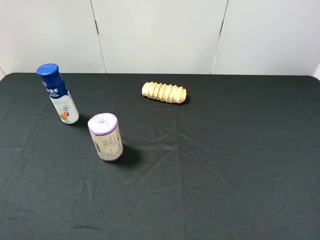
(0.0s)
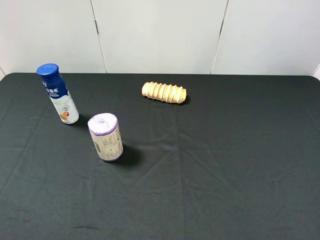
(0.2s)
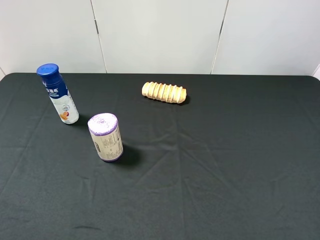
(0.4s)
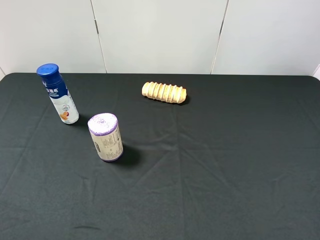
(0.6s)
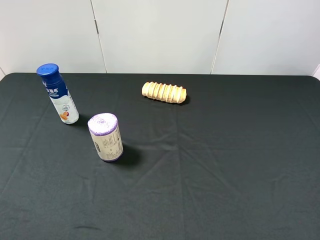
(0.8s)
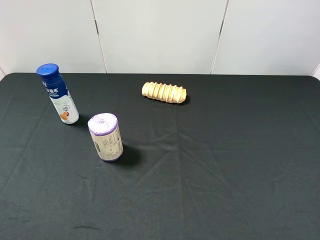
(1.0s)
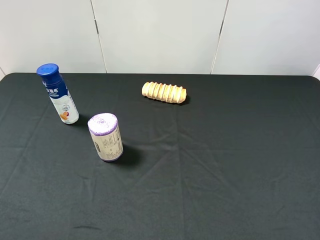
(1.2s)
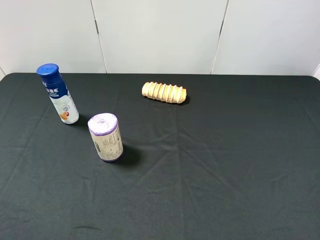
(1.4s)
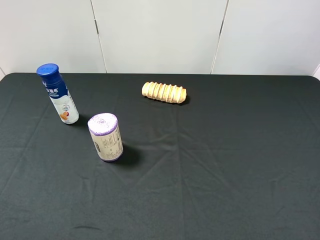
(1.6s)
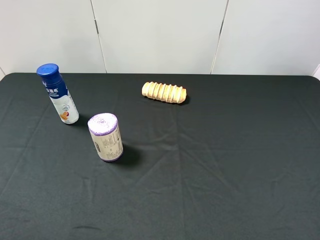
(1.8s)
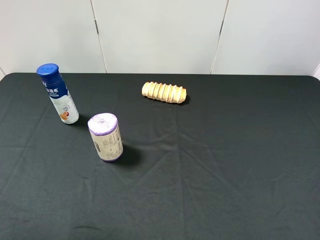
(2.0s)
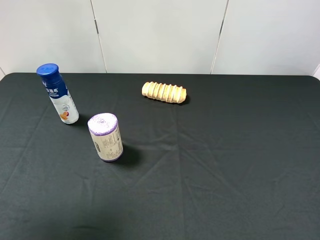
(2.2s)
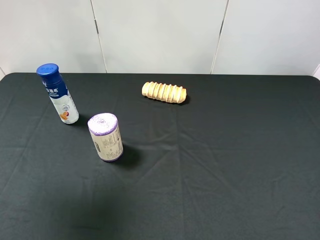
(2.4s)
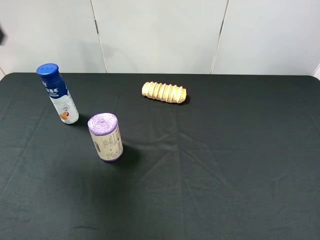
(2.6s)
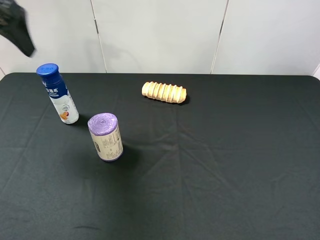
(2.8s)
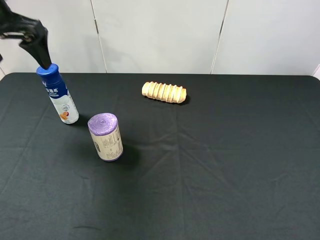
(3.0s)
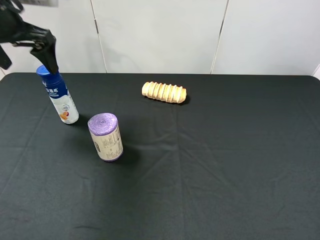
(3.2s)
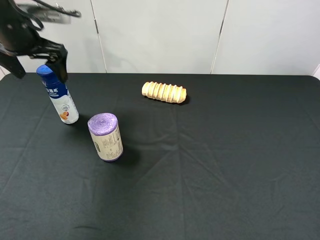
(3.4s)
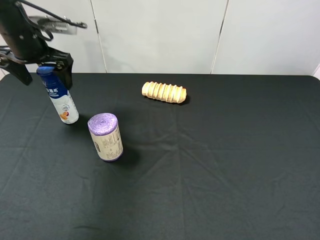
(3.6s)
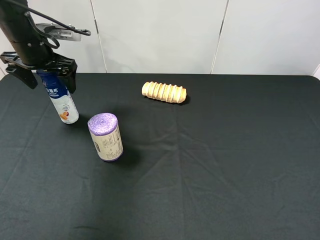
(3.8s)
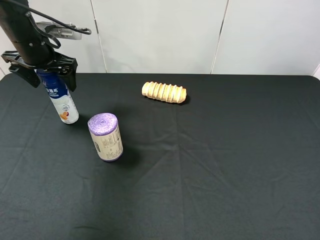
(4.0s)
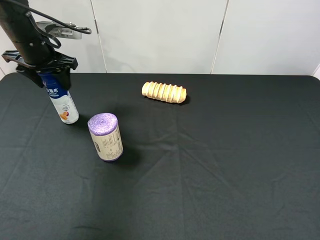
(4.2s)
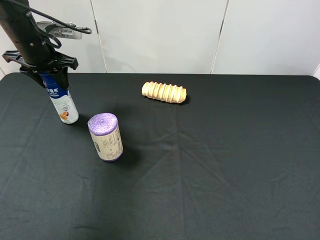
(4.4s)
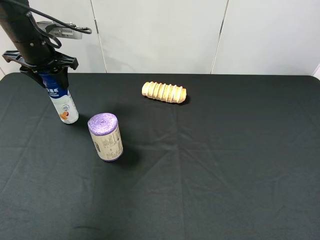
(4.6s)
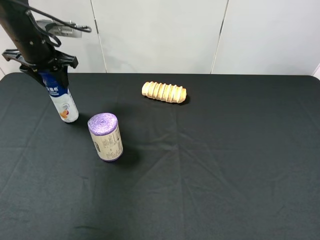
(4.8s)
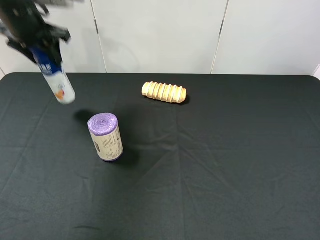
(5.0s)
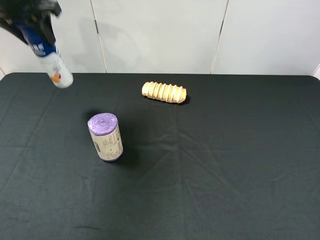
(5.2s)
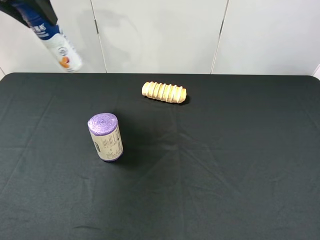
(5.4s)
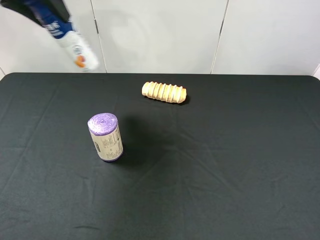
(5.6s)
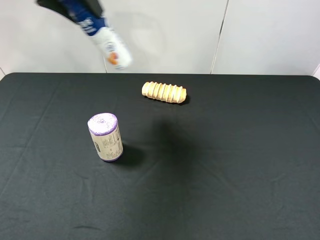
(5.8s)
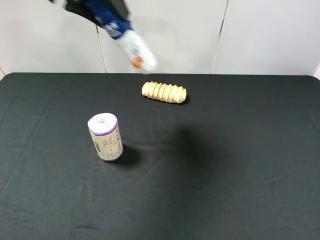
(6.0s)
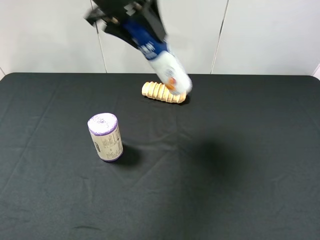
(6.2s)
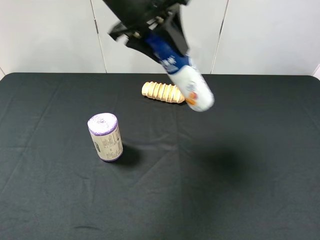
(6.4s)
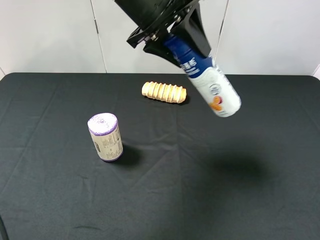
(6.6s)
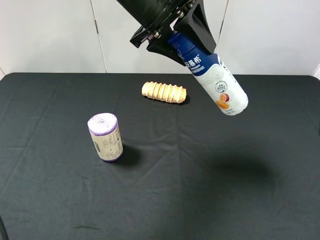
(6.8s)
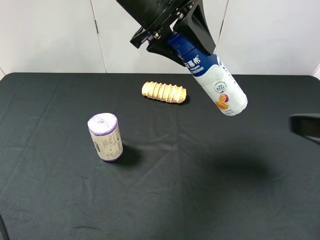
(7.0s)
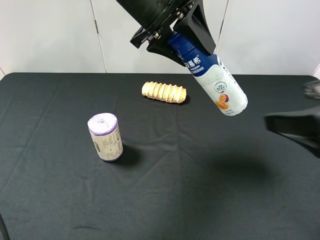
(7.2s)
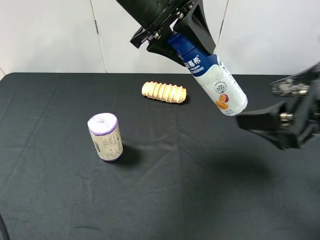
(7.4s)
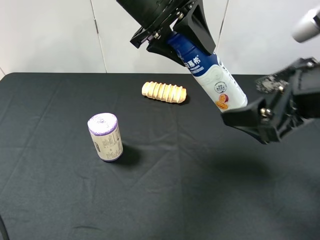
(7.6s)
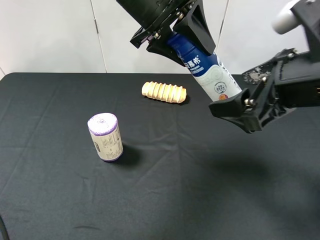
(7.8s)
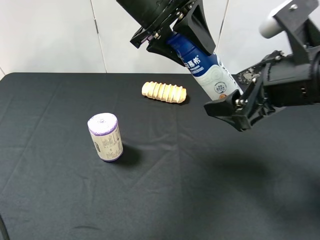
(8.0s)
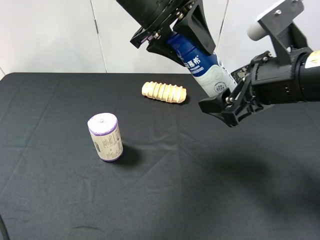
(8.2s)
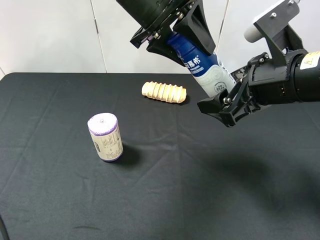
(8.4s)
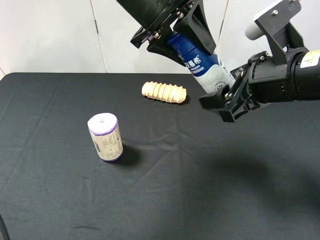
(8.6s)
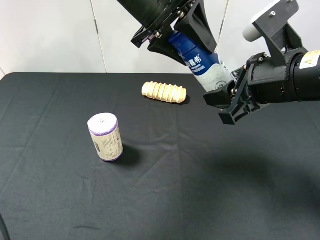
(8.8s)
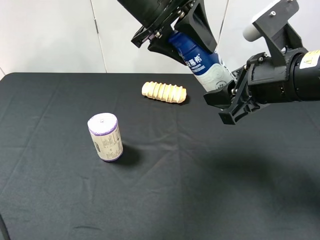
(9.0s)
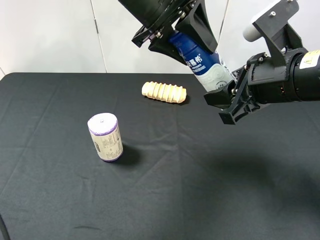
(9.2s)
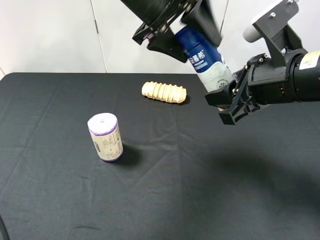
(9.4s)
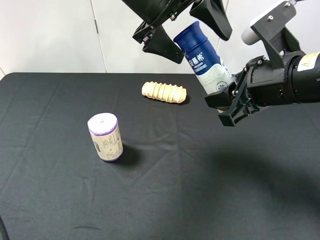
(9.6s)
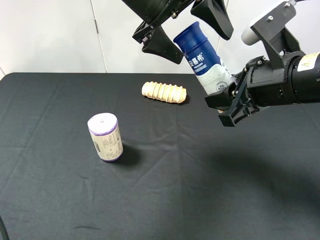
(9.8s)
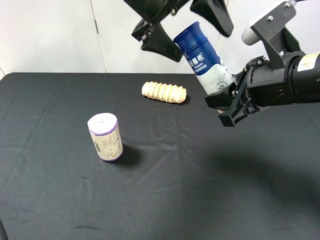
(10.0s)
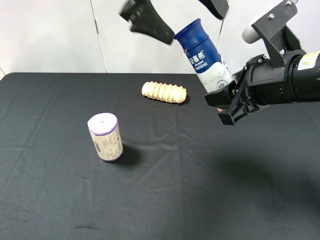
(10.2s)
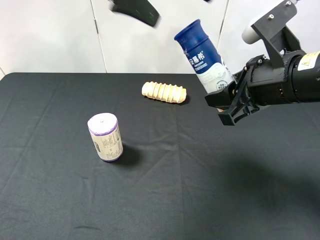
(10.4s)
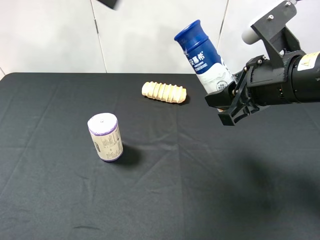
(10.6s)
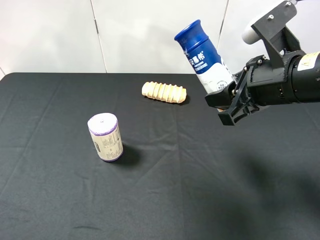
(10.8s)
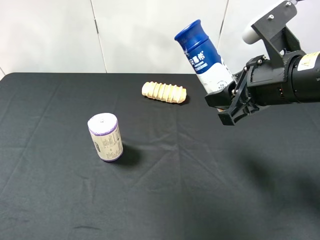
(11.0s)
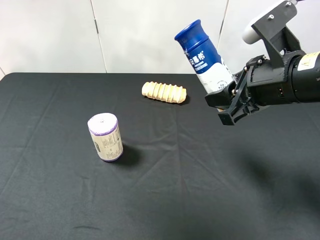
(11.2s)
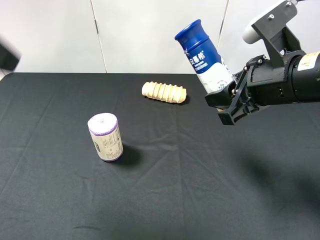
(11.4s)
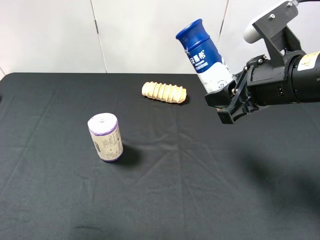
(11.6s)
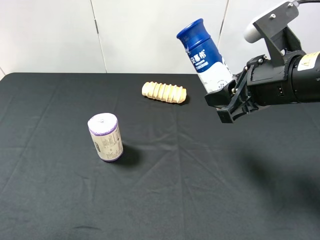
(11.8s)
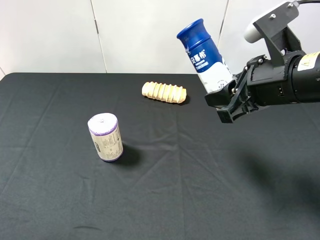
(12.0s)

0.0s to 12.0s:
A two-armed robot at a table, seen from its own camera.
Task of the whole recording: use the left gripper to pick up the item and transfer it from the left gripper to the right gripper.
1.6s to 3.0s: The left gripper is displaced forward by roughly 30 cm.
3.0s to 4.4s: The left gripper heads downward and forward, covering roughly 10 cm, and closes its fingers.
4.4s to 6.0s: The left gripper moves upward, to the right and backward, roughly 20 cm.
6.0s to 7.6s: The right gripper is displaced forward and to the left by approximately 20 cm. Meanwhile the left gripper travels to the right by about 10 cm.
7.6s to 9.0s: The right gripper shifts by roughly 5 cm, and closes up.
9.0s to 10.4s: The left gripper moves upward, roughly 10 cm, and opens its fingers.
10.4s to 12.0s: The left gripper heads backward and to the left, covering approximately 35 cm.

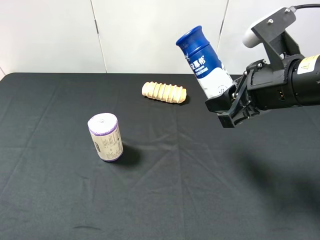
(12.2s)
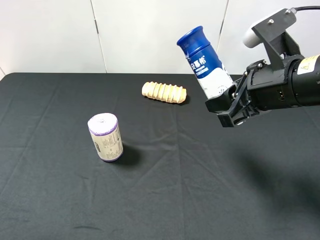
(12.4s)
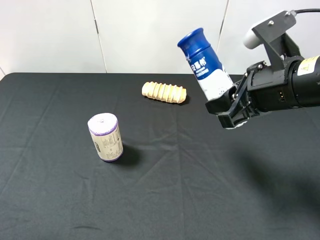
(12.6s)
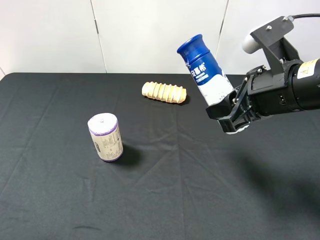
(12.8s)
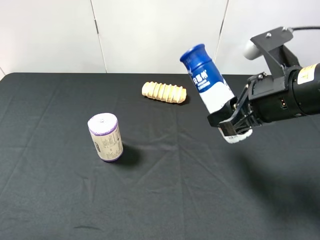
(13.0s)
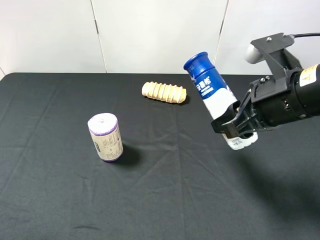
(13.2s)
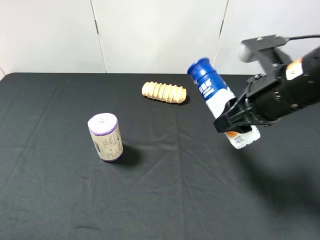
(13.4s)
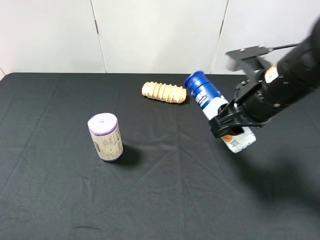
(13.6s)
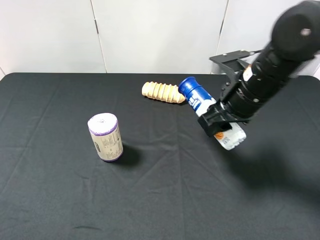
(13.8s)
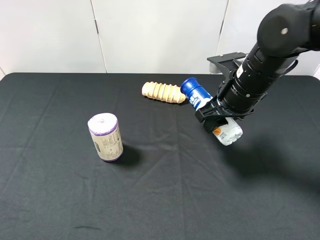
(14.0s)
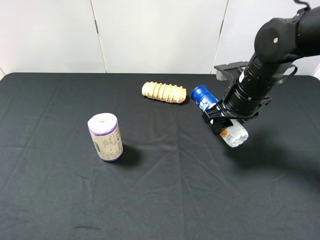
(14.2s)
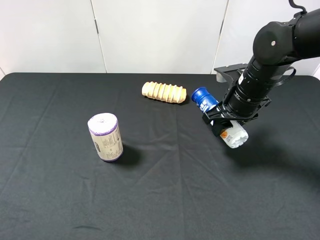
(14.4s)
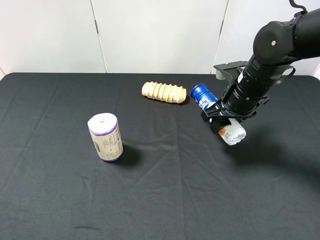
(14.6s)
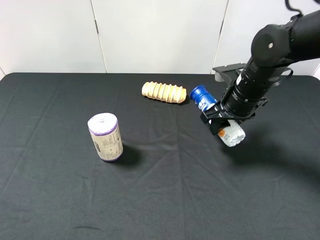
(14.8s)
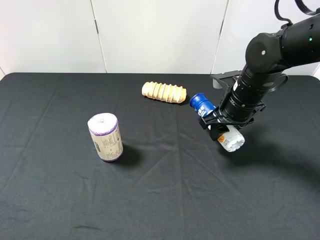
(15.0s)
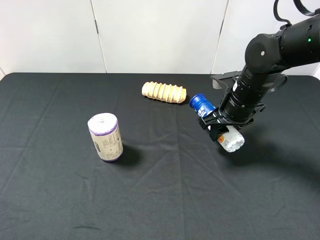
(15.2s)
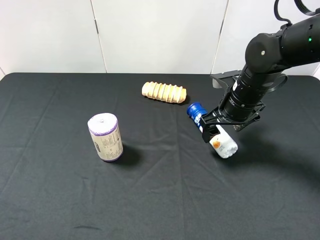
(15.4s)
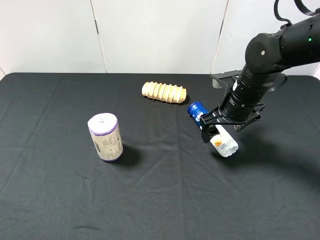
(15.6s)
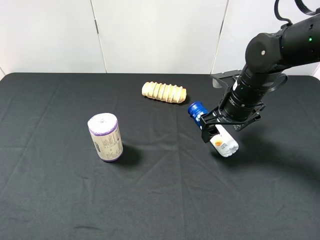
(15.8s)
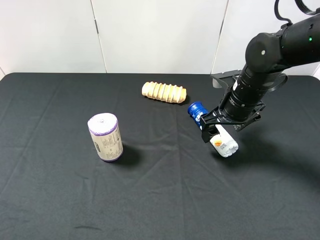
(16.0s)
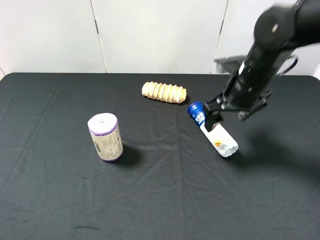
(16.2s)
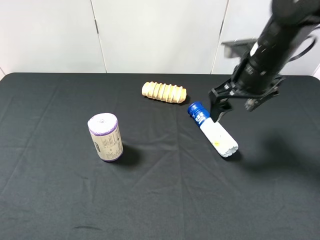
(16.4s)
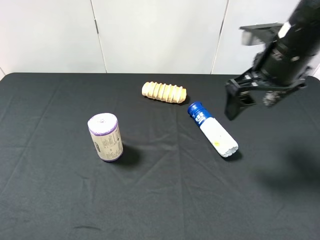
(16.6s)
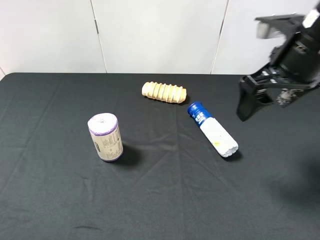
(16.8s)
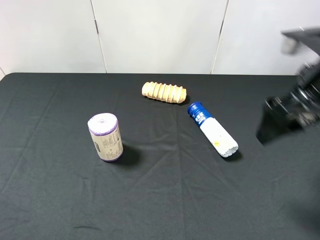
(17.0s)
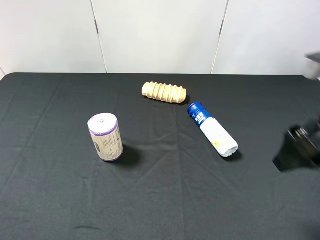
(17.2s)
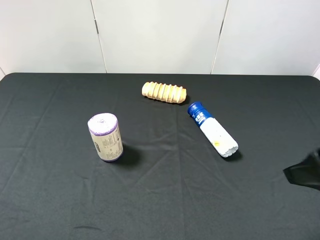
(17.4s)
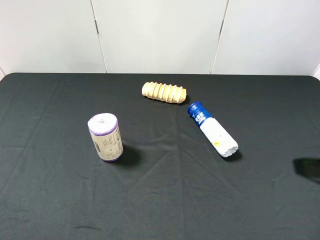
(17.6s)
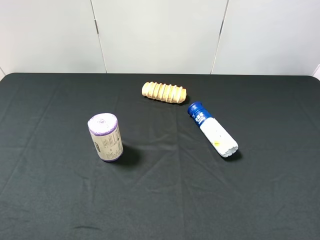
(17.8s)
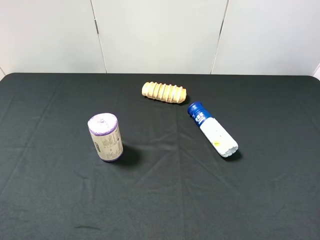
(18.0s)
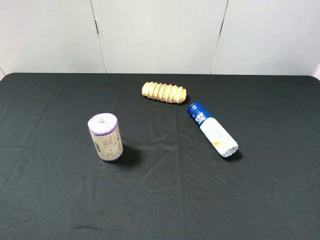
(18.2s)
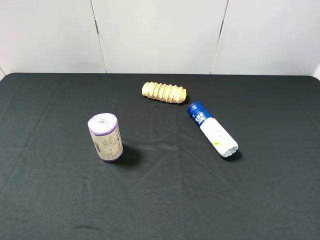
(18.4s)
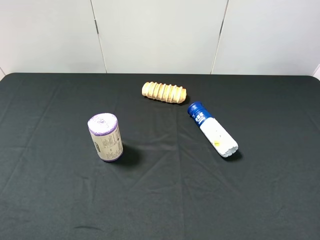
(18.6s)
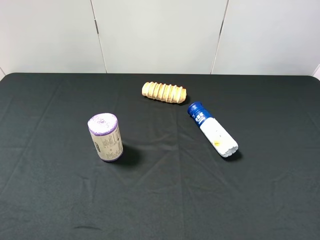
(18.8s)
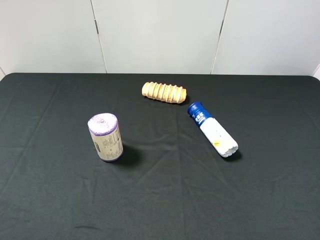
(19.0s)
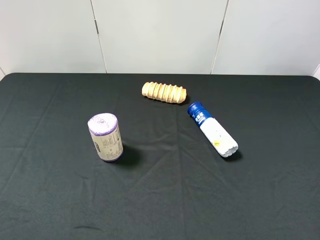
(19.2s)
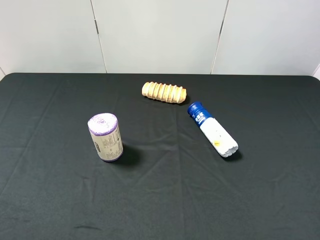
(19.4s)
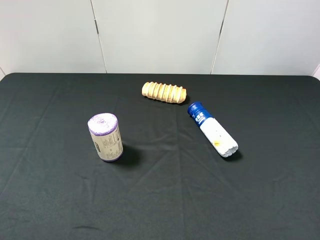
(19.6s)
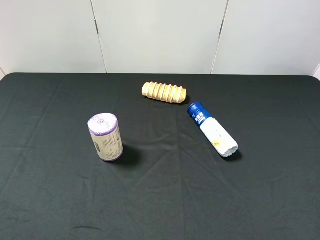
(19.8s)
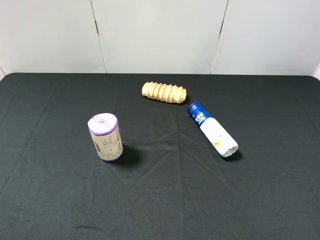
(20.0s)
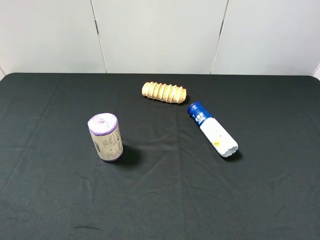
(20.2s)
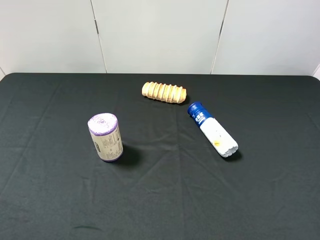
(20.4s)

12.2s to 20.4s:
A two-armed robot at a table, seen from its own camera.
Task of the whole recording: use the left gripper to pick up the item and transfer it from the left gripper to the right gripper.
12.2s to 13.8s: The right gripper is displaced forward by roughly 5 cm.
13.8s to 15.4s: The right gripper travels downward by some 5 cm, and opens.
15.4s to 17.2s: The right gripper is displaced backward, upward and to the right by some 20 cm.
17.2s to 18.8s: The right gripper heads backward and to the right, covering roughly 15 cm.
